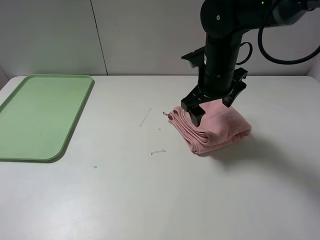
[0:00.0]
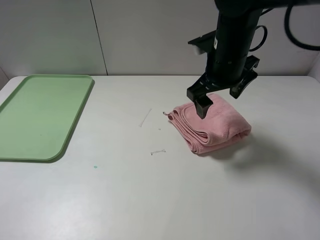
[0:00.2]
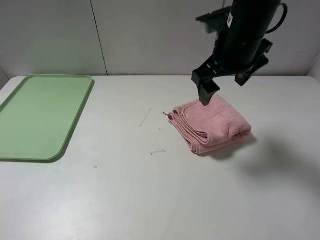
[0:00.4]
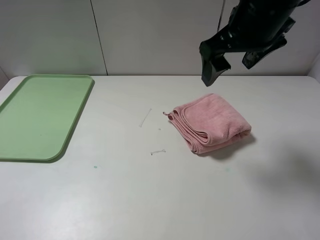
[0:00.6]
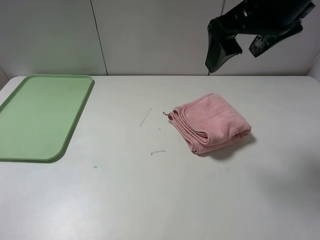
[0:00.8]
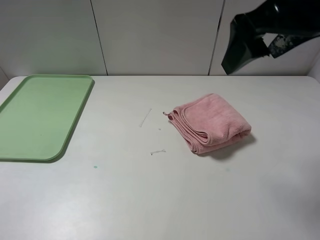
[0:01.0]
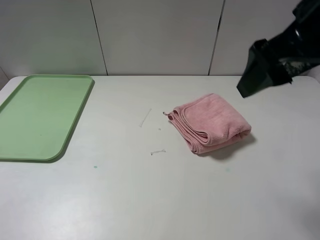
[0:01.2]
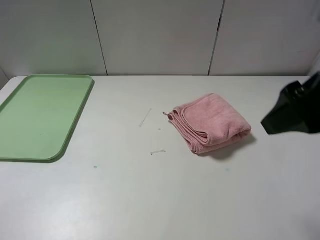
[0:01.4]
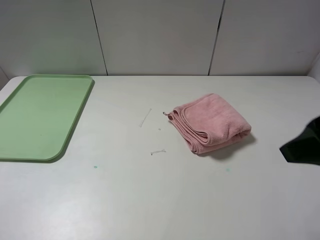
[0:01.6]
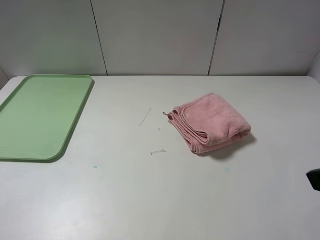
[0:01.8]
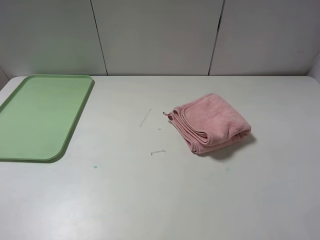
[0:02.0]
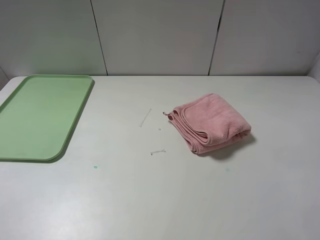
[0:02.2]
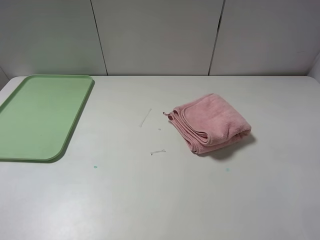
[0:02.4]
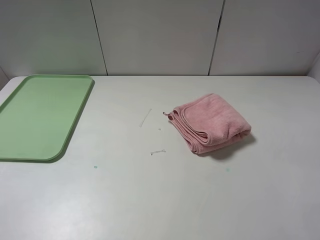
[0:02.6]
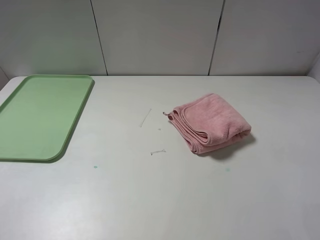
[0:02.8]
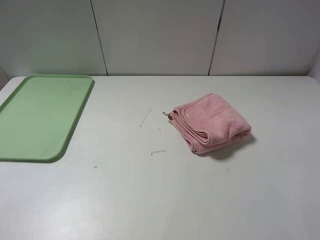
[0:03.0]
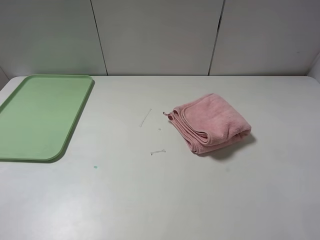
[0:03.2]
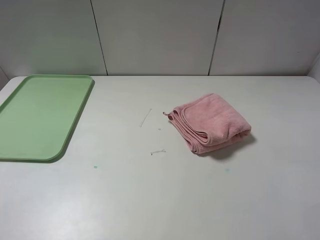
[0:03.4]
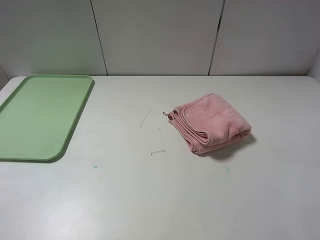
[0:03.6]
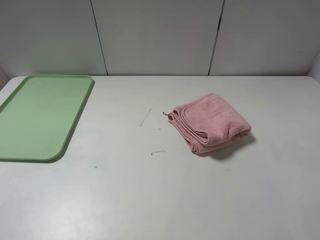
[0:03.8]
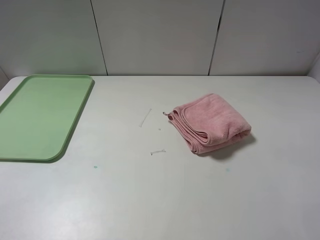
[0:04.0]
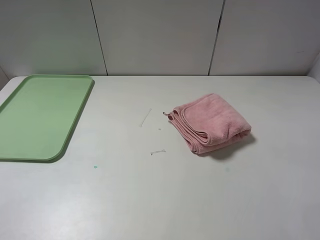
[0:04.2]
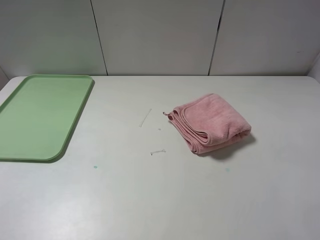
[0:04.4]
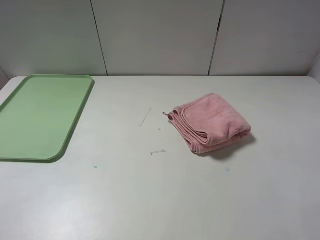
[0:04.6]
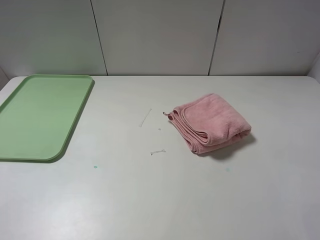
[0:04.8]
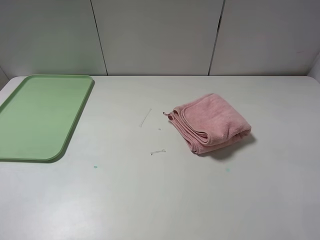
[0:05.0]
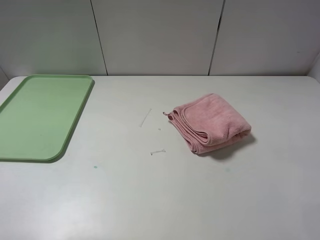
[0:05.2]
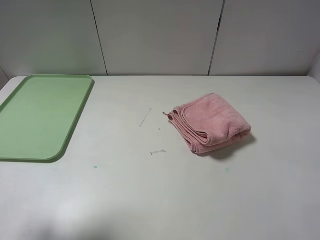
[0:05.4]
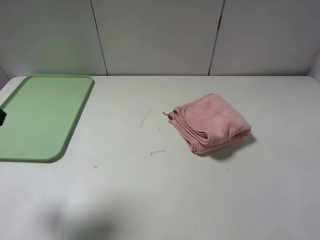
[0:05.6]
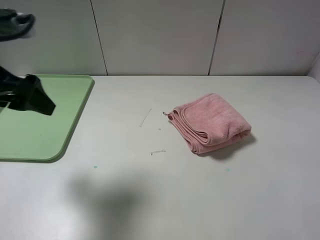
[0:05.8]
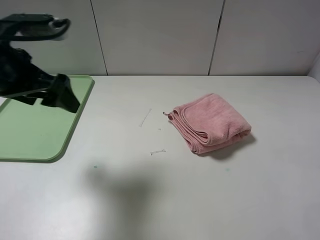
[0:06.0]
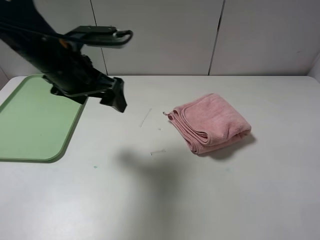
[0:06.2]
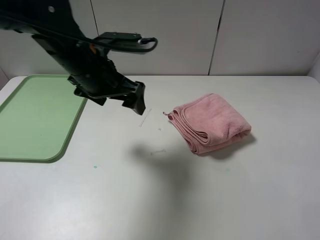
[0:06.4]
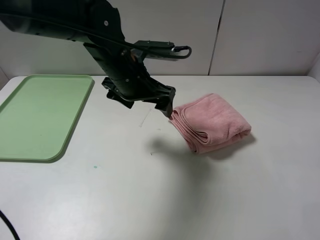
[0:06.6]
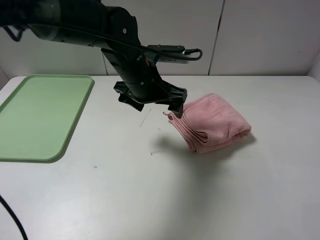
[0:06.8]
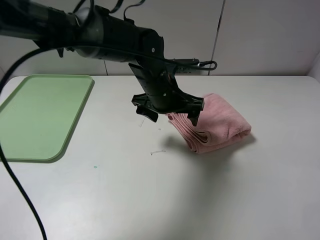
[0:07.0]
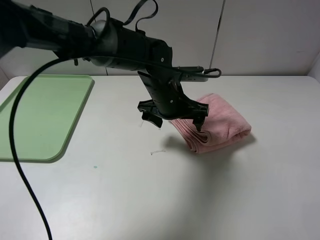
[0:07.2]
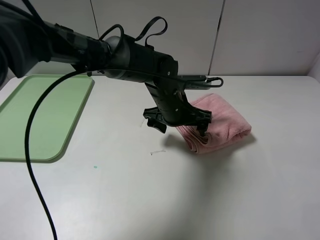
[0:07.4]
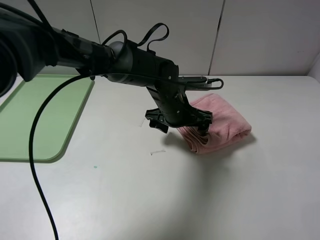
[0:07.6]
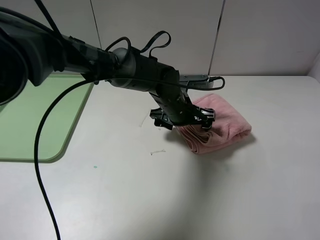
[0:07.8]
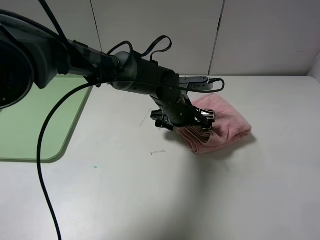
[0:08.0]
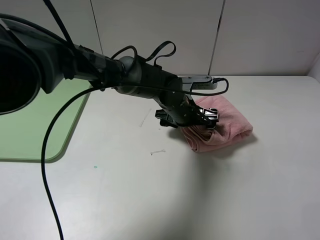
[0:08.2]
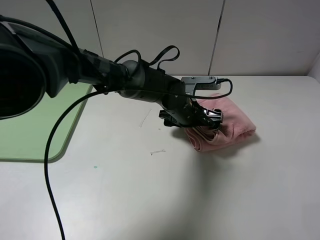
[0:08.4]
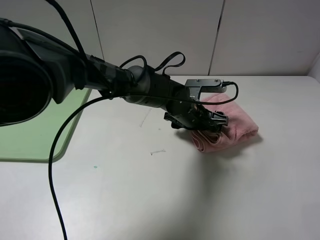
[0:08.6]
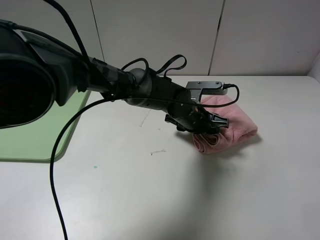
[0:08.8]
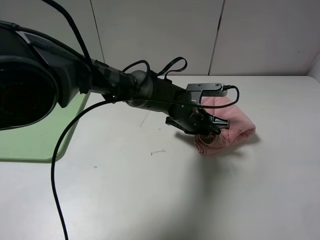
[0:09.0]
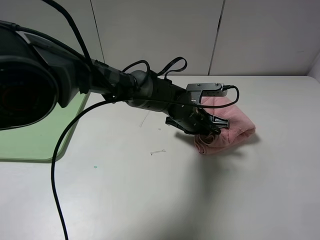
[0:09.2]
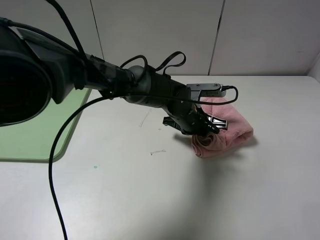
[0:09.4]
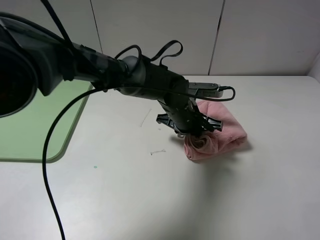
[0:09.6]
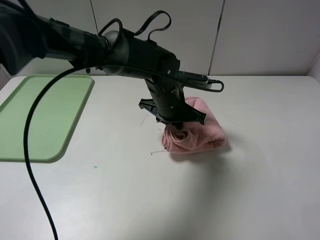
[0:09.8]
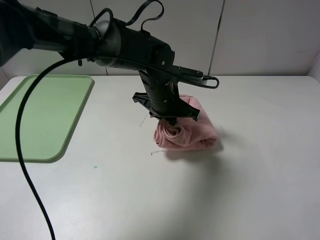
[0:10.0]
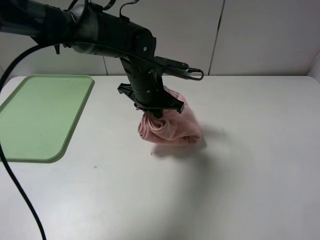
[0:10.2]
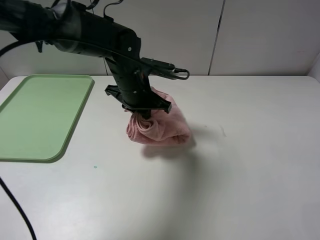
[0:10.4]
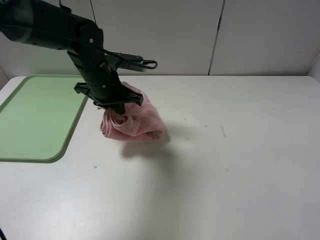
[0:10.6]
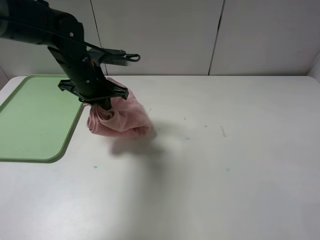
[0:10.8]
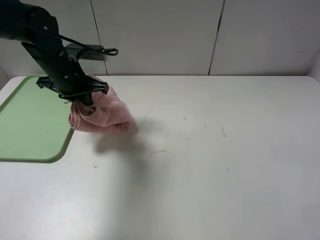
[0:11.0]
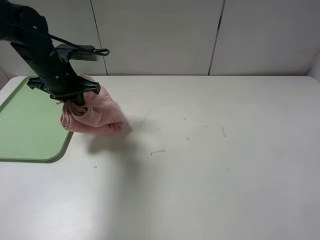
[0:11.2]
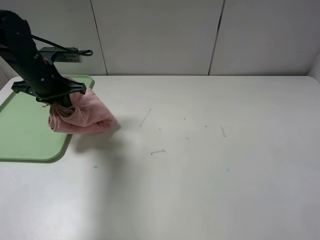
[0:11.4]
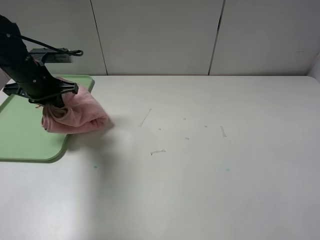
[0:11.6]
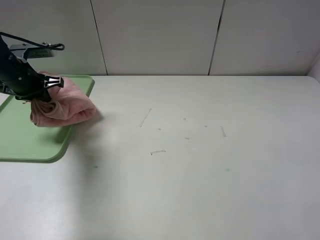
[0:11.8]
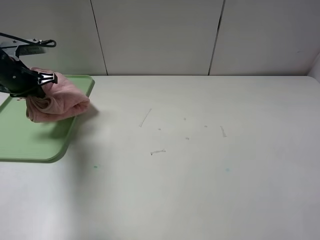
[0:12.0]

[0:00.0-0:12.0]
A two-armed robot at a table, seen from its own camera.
0:00.0 to 0:01.6: The right gripper shifts about 25 cm backward, to the right and upward.
0:01.6 to 0:03.0: The right gripper goes roughly 15 cm backward and to the right.
0:03.0 to 0:04.4: The two grippers keep their place.
0:04.4 to 0:06.0: The left gripper shifts about 25 cm forward and to the right.
0:06.0 to 0:07.6: The left gripper heads to the right and downward, covering roughly 30 cm.
0:07.6 to 0:09.0: The left gripper moves some 5 cm, and closes its fingers.
0:09.0 to 0:10.4: The left gripper heads to the left and upward, covering roughly 15 cm.
0:10.4 to 0:12.0: The left gripper is displaced to the left by about 25 cm.

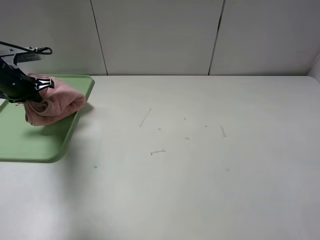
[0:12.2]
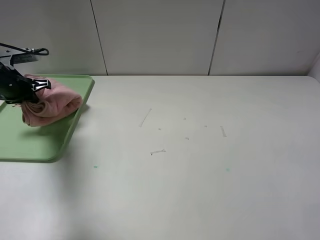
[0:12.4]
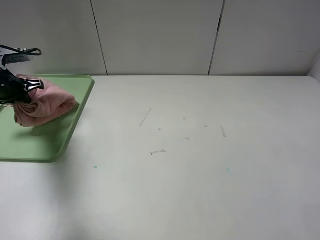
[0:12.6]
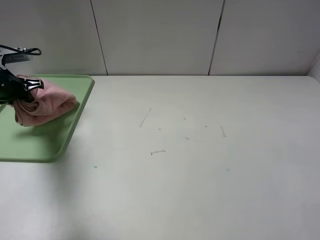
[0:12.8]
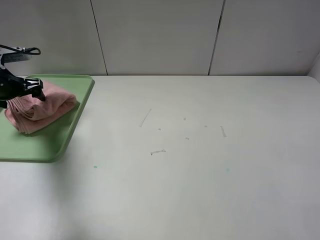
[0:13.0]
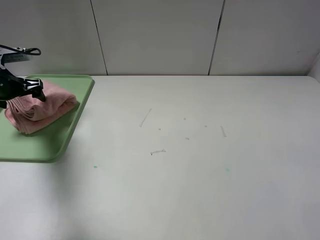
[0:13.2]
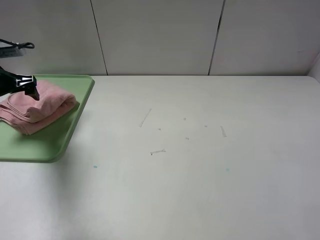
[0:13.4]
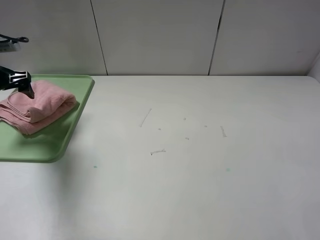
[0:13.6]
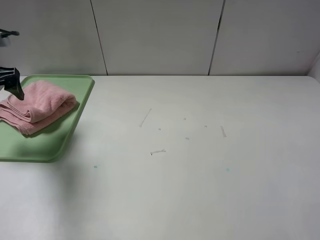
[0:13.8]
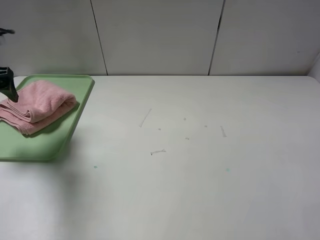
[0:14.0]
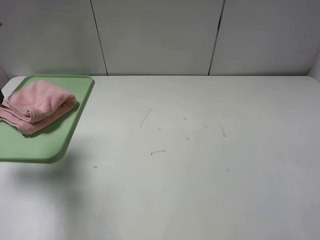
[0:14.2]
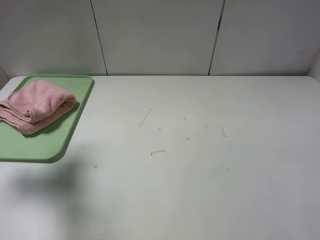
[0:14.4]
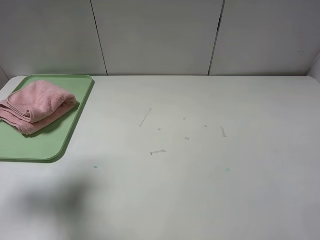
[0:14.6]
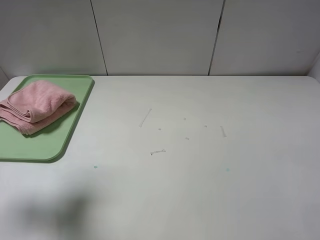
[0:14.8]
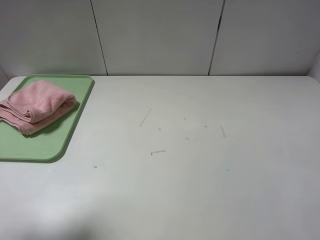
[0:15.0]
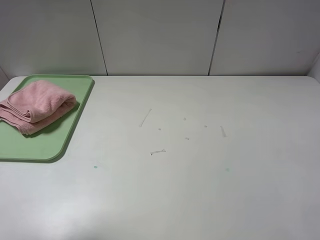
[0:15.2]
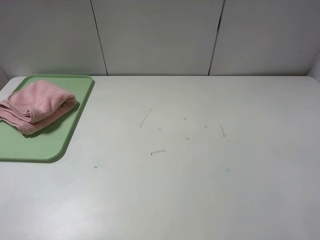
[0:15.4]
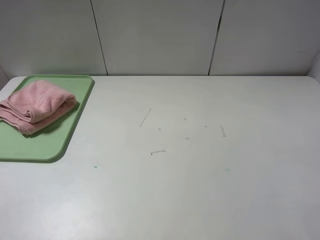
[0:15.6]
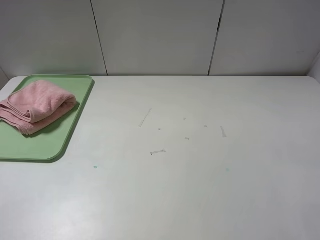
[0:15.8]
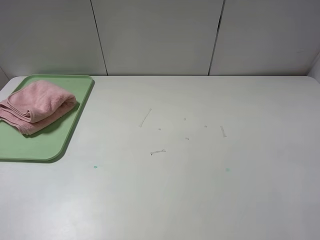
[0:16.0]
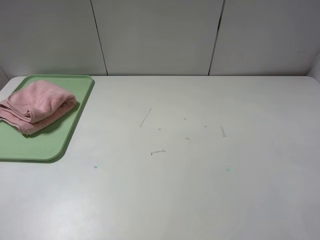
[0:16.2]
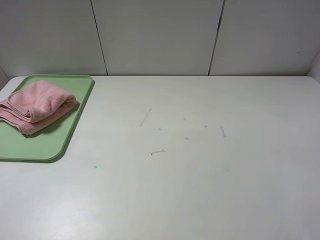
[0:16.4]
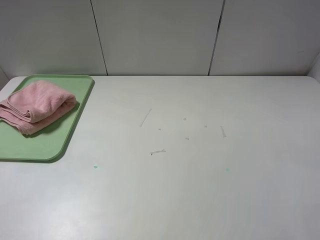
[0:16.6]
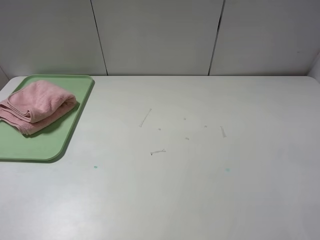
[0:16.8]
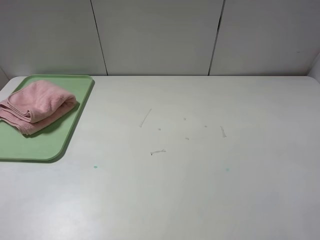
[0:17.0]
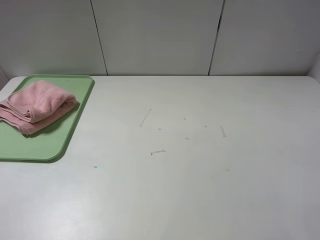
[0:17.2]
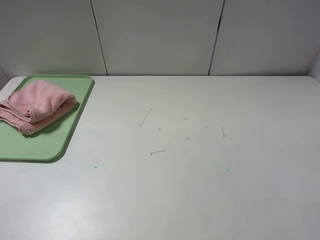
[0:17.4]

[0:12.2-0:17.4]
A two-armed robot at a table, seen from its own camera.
0:12.2 to 0:14.0: The left gripper goes roughly 10 cm upward and backward, and opens.
0:14.0 to 0:15.6: The left gripper heads backward, covering about 25 cm.
